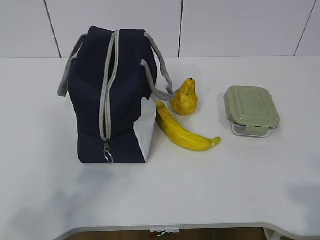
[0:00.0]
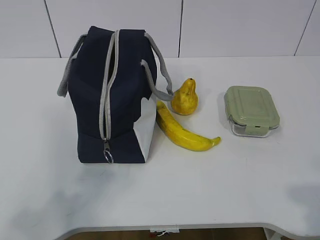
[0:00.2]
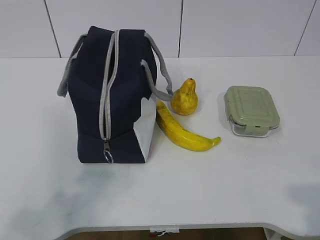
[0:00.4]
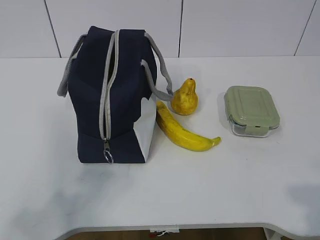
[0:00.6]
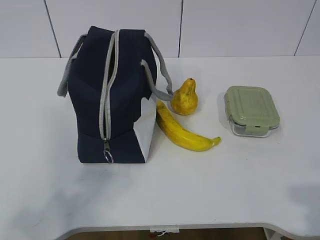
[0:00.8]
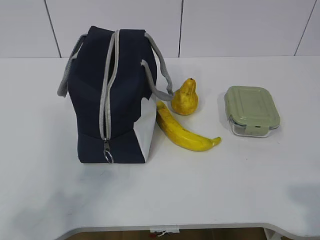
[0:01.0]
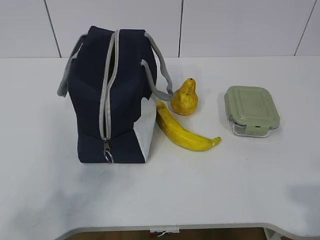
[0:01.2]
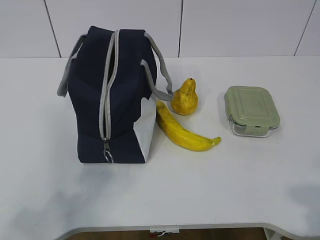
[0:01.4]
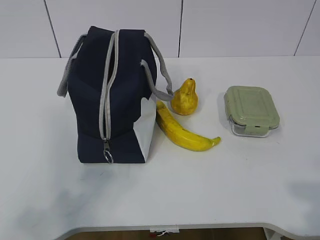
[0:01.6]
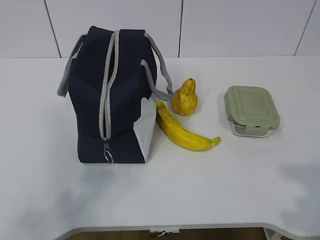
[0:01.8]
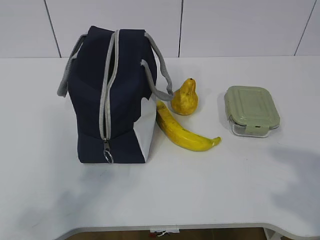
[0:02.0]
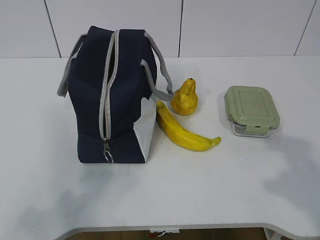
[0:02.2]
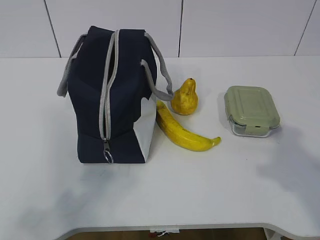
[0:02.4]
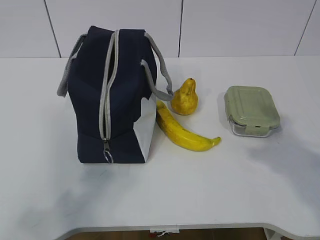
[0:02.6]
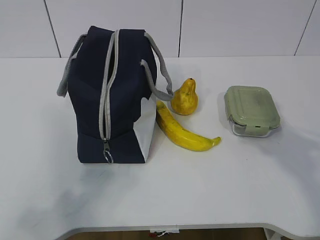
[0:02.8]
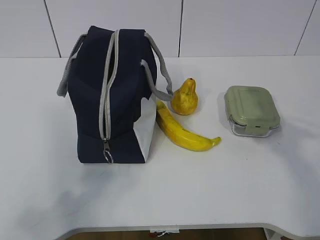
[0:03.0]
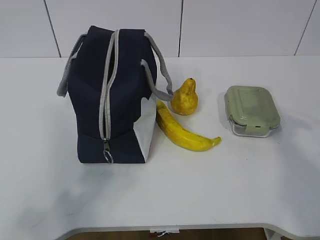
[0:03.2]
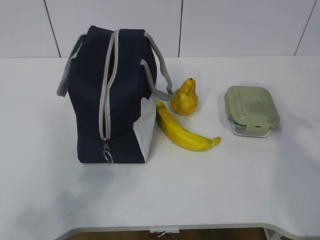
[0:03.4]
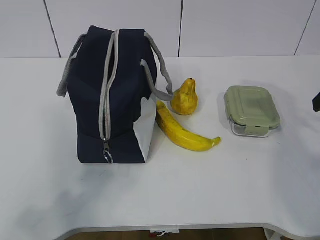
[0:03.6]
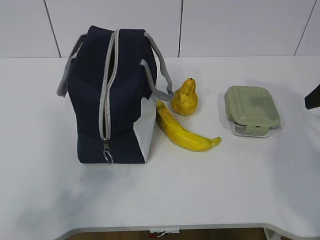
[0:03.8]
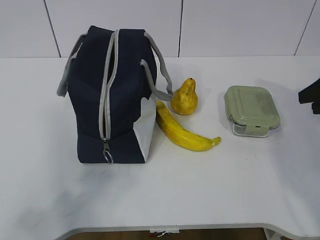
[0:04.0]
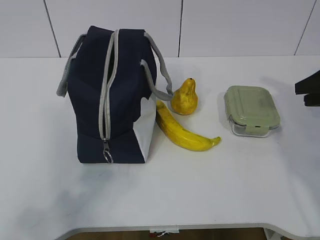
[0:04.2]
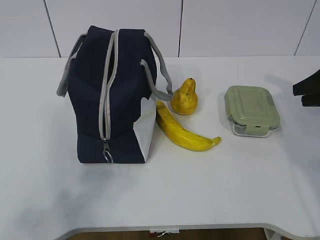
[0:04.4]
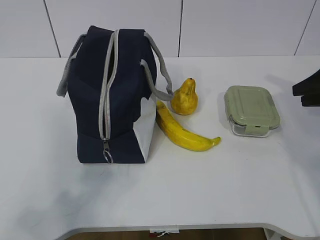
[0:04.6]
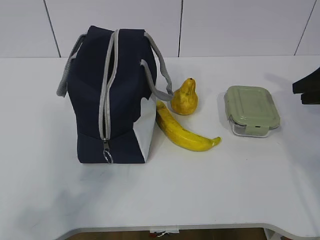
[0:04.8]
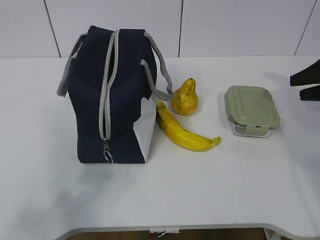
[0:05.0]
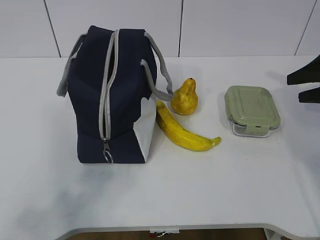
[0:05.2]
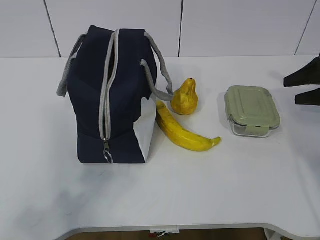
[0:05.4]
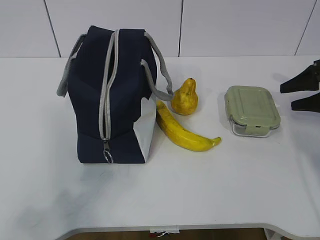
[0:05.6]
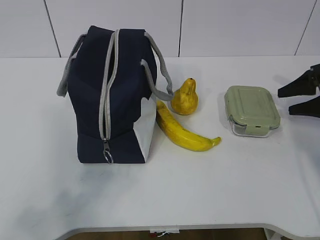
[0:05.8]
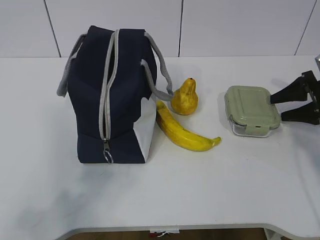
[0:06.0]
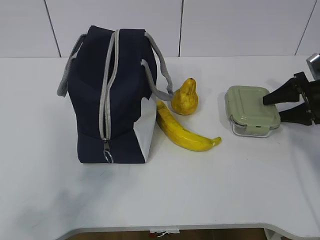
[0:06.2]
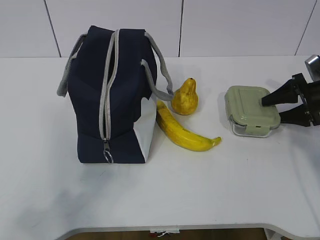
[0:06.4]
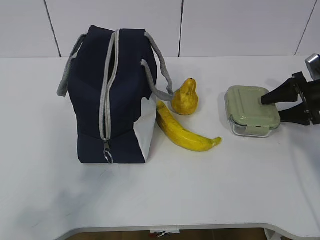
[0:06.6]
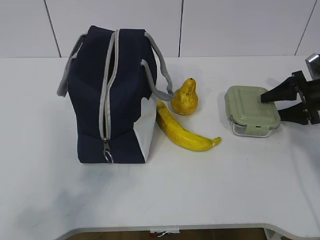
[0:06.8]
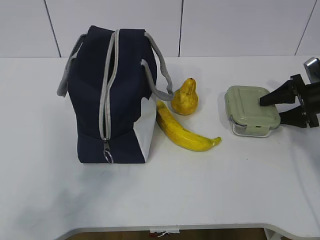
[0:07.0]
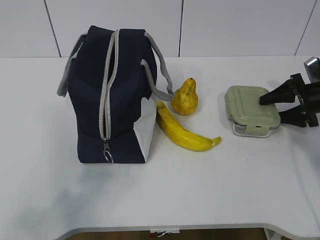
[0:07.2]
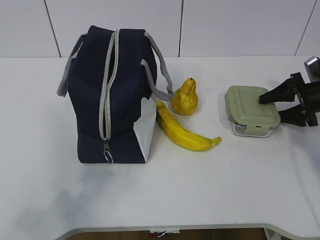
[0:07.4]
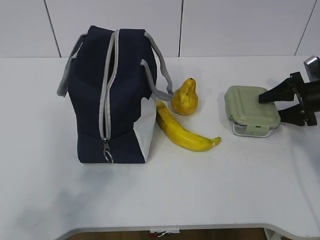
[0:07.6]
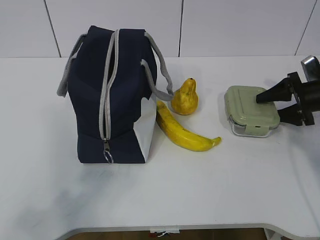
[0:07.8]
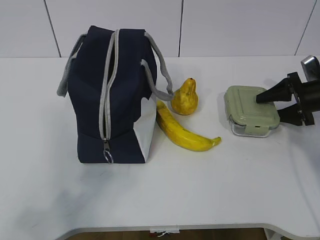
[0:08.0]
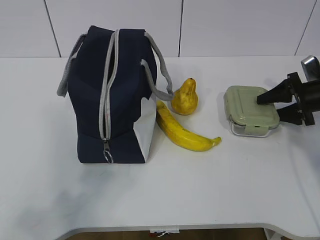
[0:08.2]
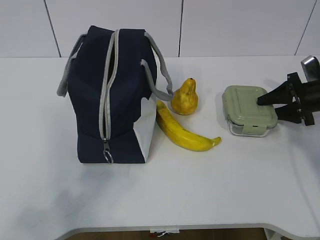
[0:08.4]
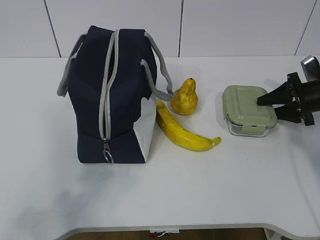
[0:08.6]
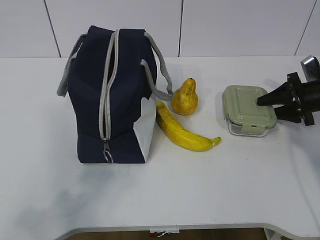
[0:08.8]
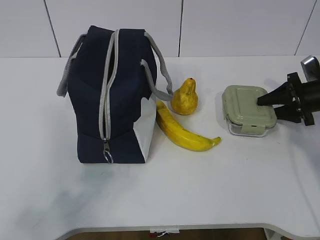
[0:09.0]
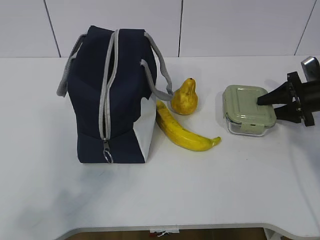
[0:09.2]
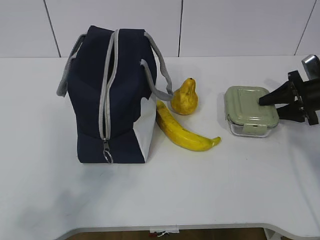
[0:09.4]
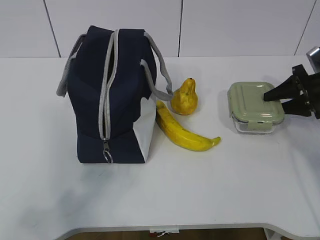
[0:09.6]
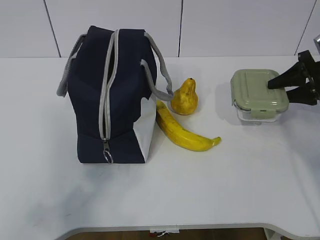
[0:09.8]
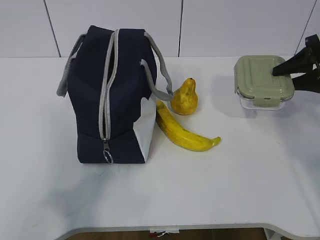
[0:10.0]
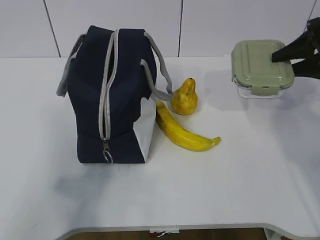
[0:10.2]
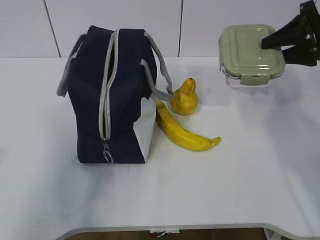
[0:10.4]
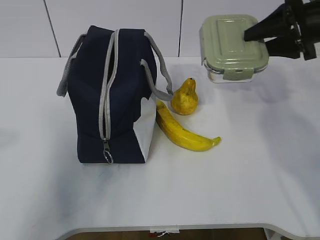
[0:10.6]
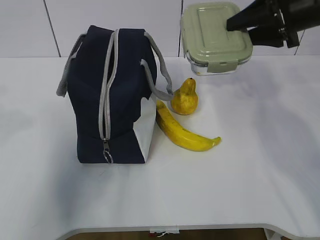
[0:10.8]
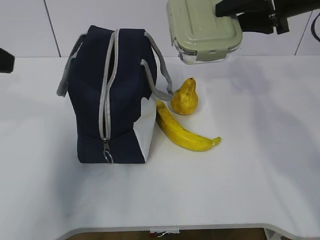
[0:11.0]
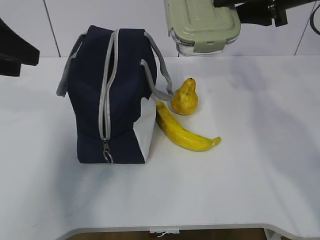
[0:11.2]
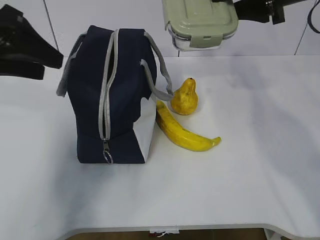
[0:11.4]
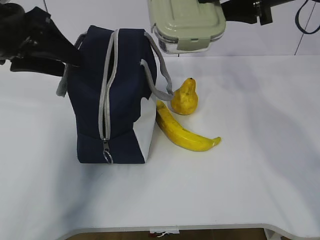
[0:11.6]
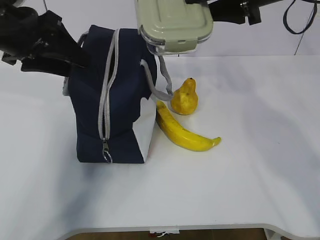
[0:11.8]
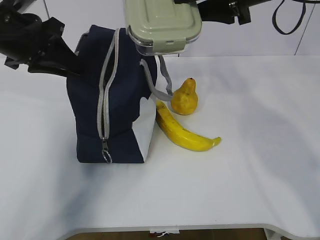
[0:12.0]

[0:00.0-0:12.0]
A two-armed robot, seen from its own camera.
Step, 0:00.0 to 0:07.6: Grab the lunch box with your right hand.
Step, 0:07.8 to 0:10.4: Grab the lunch bag with your left hand.
0:01.6 to 0:03.0: The right gripper is displaced forward by some 25 cm.
0:03.0 to 0:04.4: The right gripper goes some 20 cm forward, to the right and downward.
0:04.4 to 0:06.0: The right gripper goes some 10 cm downward and forward.
0:06.0 to 0:07.6: There are only small adjustments of the grippers.
0:07.6 to 0:09.0: Neither gripper changes place.
0:09.0 to 0:10.4: The right gripper shifts roughly 15 cm upward.
0:10.4 to 0:12.0: The left gripper travels forward by some 25 cm, and closes, while the right gripper travels to the left and upward by approximately 15 cm.

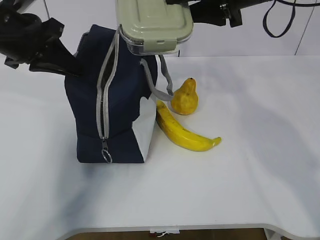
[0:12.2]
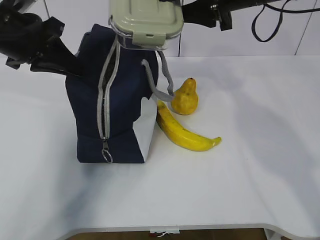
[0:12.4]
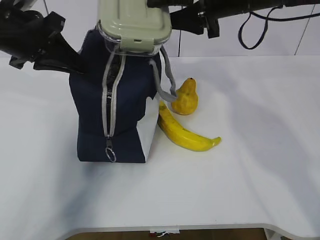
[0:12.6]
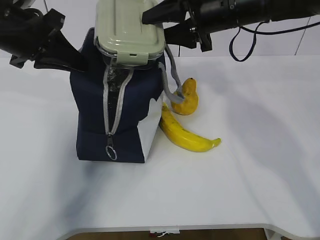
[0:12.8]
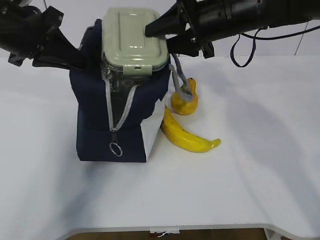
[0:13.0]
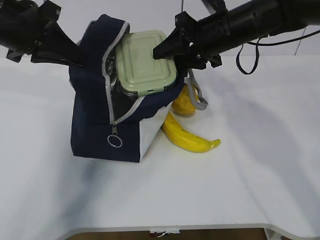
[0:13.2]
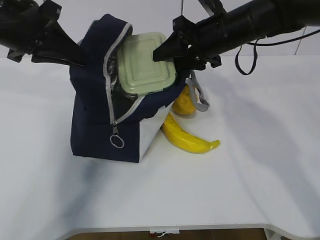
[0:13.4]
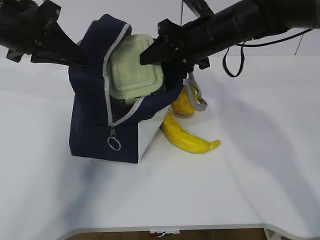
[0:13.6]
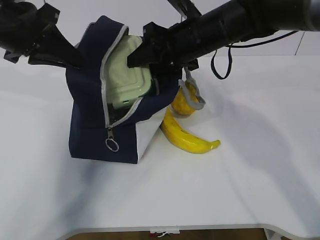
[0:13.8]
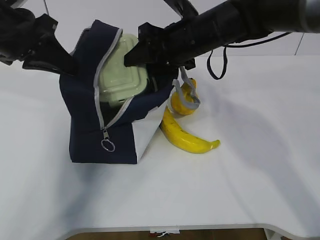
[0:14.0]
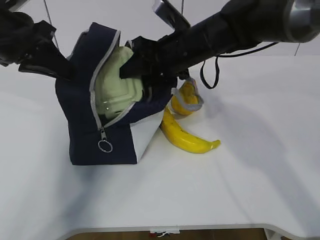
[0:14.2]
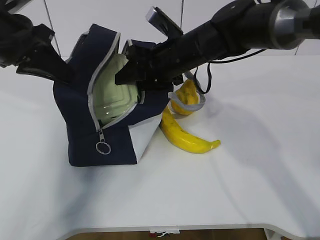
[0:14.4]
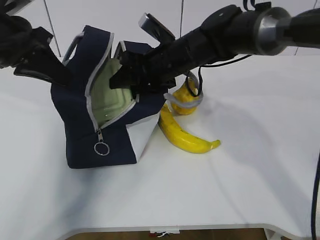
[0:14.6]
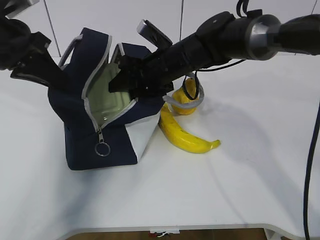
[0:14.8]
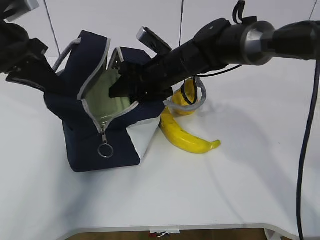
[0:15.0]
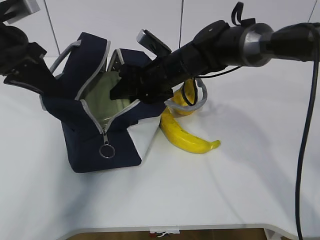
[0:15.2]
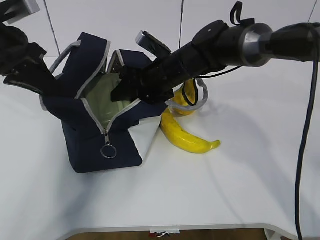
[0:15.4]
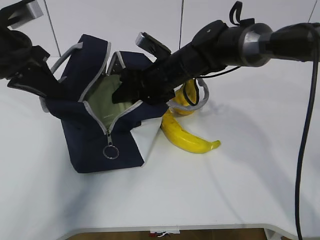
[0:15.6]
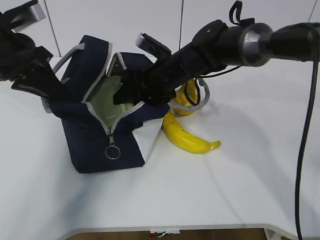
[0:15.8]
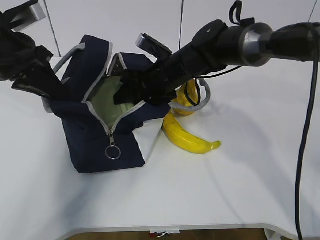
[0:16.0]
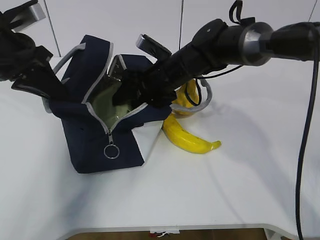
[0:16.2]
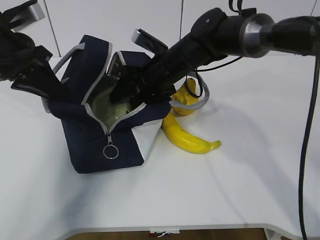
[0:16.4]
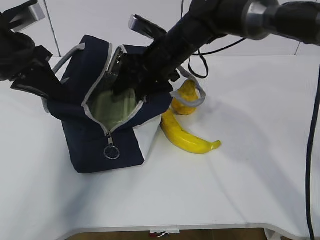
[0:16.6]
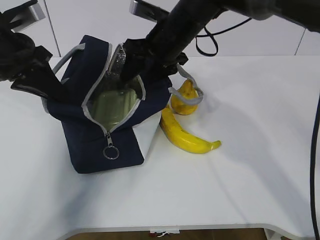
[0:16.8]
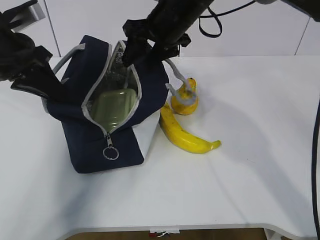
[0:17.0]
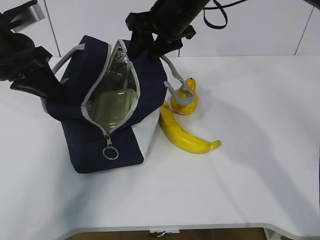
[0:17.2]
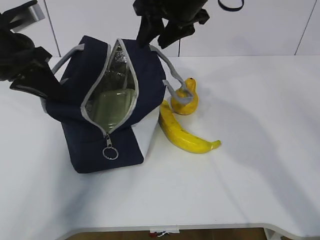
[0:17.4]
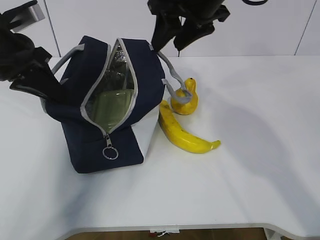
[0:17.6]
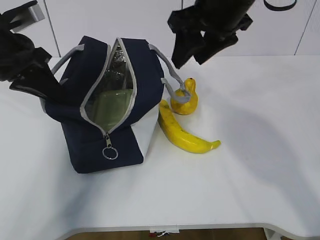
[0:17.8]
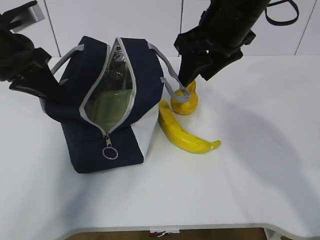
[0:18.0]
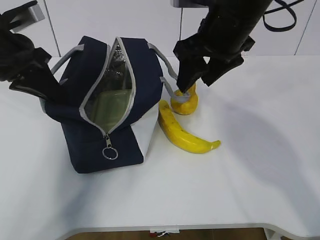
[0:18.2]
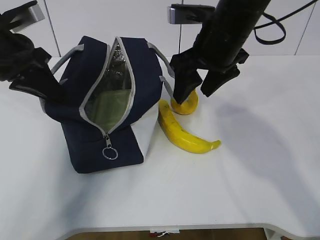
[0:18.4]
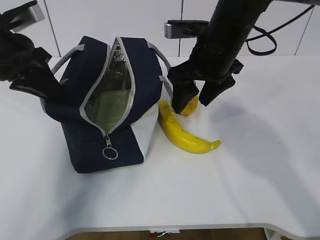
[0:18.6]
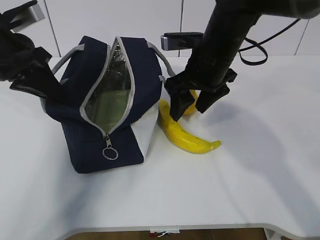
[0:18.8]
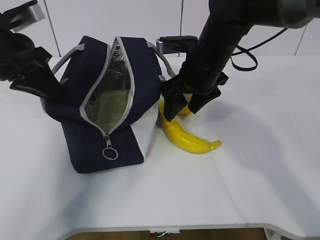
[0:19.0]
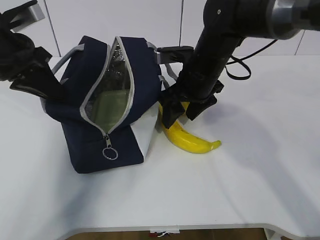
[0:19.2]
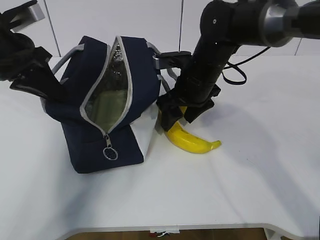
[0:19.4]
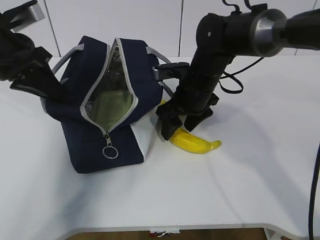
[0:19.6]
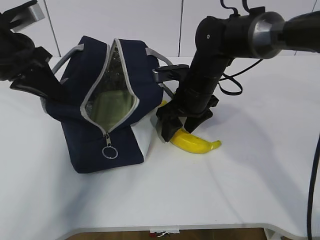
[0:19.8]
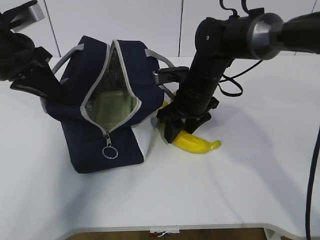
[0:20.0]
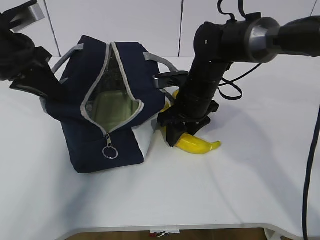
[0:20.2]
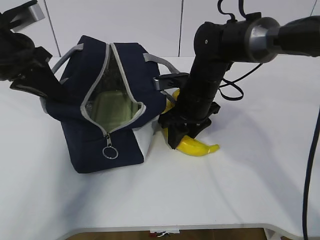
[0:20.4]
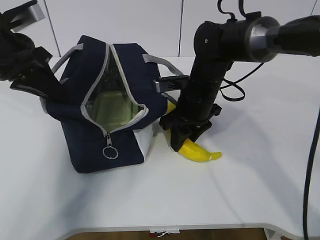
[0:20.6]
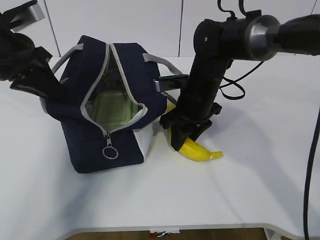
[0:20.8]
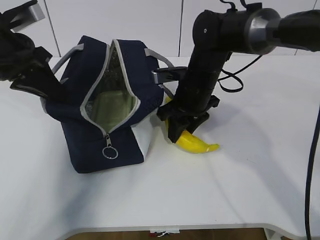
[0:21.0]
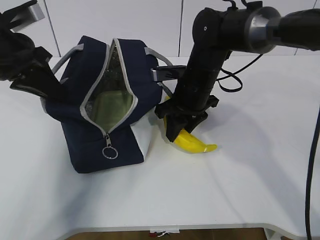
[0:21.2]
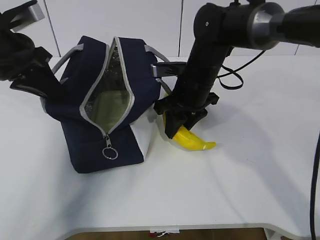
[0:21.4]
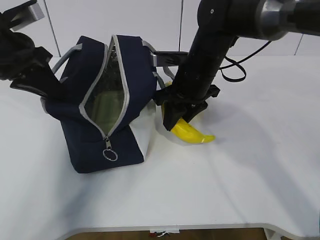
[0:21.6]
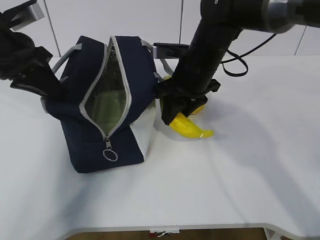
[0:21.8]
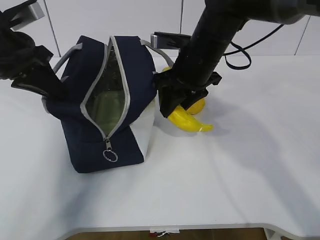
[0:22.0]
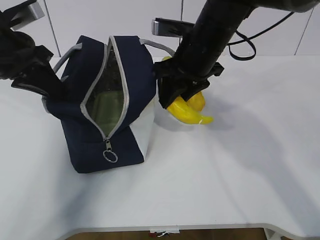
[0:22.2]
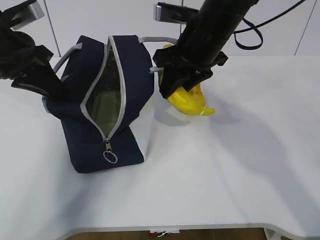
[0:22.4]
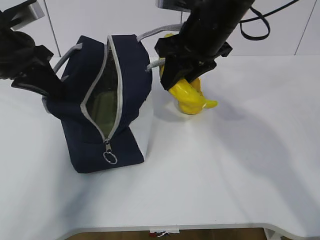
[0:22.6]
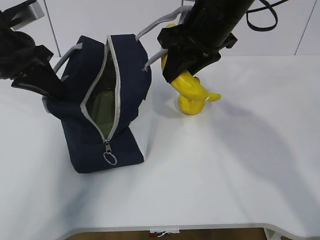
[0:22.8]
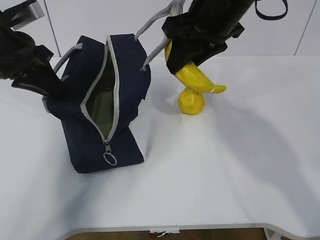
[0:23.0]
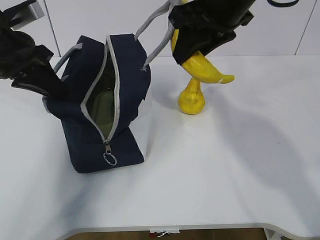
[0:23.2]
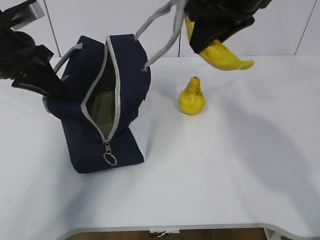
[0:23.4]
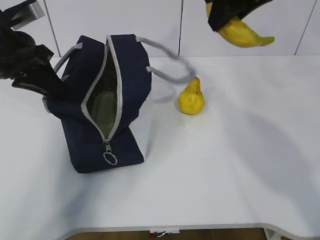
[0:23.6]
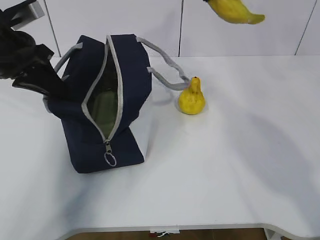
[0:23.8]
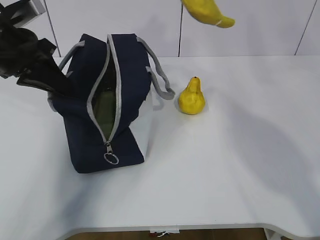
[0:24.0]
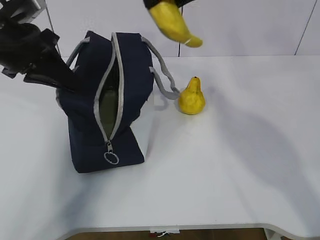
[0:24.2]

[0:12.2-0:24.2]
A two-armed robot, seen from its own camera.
Step, 0:14.0 to 0:17.2: Grab the banana with your right hand.
Step, 0:17.4 to 0:21.6: Place it into the bag with your right hand.
Step, 0:21.8 to 0:24.0: Grab the pear with your right hand.
0:12.2 to 0:13.8: The right gripper moves downward and to the left, about 10 cm.
0:13.8 to 0:15.2: The right gripper goes some 10 cm downward.
0:16.6 to 0:18.2: The right gripper travels upward, backward and to the right by some 15 cm.
0:18.2 to 0:19.8: The right gripper moves downward, approximately 15 cm.
0:19.8 to 0:21.2: The right gripper closes its fingers.
0:21.2 to 0:22.6: The right gripper travels upward by about 15 cm.
0:22.6 to 0:24.2: The right gripper goes some 10 cm upward.
